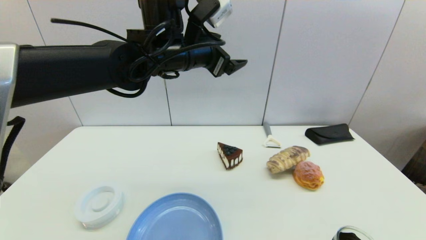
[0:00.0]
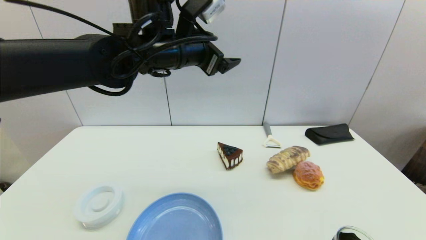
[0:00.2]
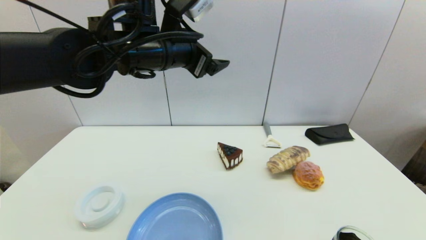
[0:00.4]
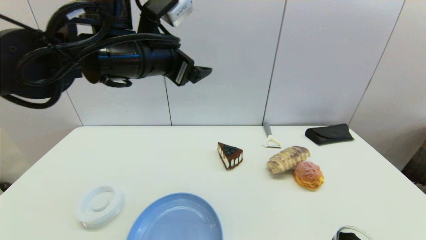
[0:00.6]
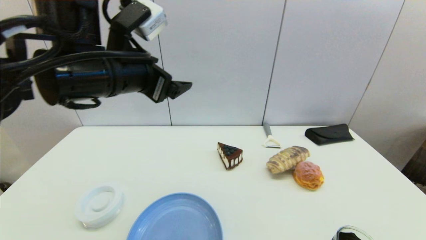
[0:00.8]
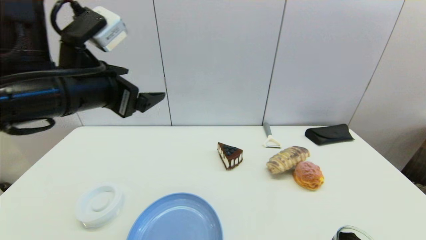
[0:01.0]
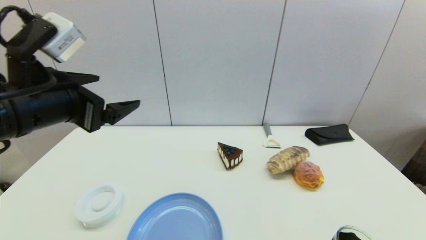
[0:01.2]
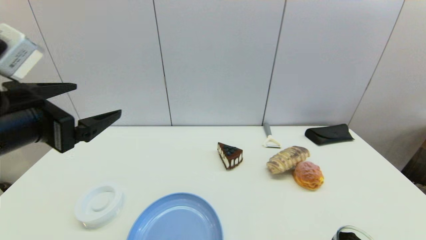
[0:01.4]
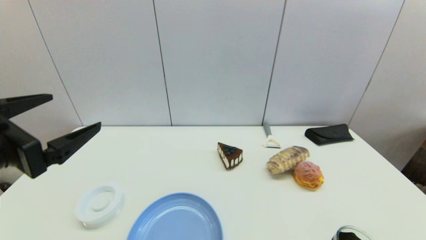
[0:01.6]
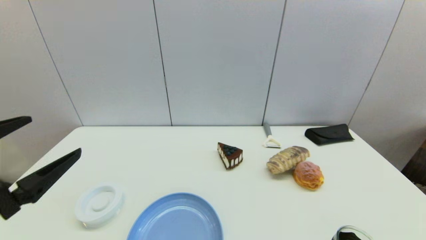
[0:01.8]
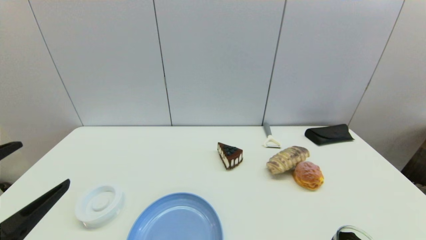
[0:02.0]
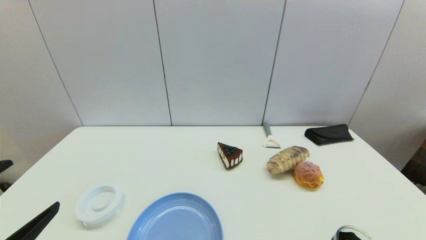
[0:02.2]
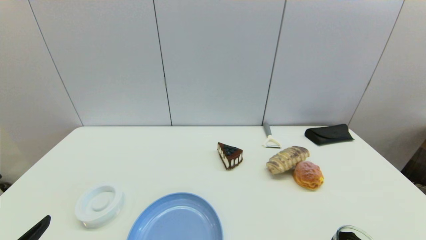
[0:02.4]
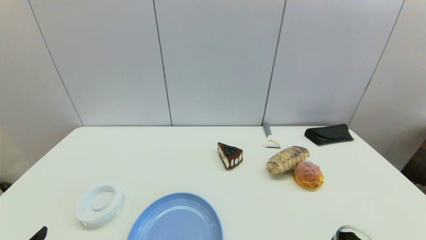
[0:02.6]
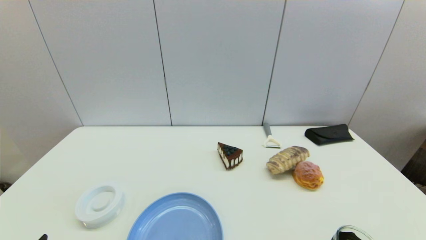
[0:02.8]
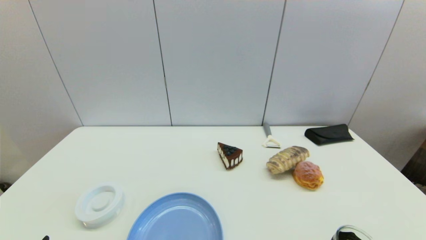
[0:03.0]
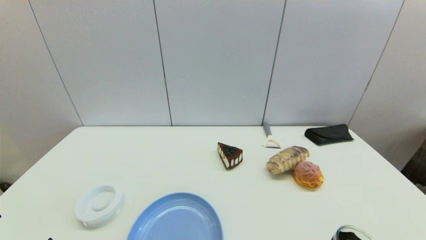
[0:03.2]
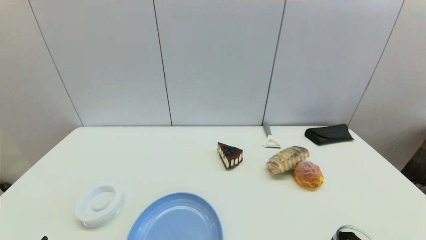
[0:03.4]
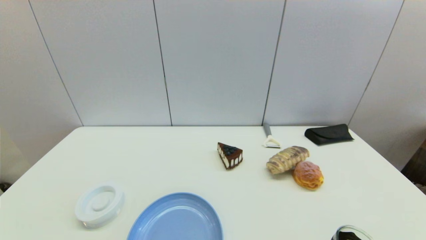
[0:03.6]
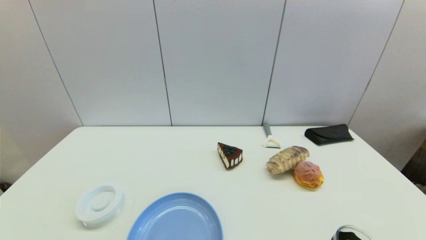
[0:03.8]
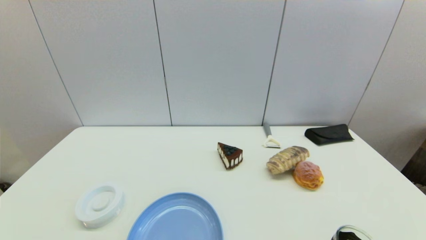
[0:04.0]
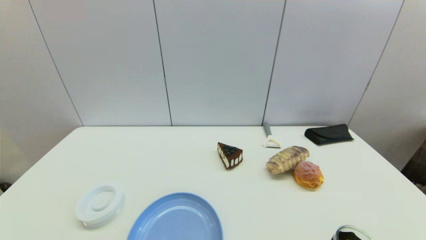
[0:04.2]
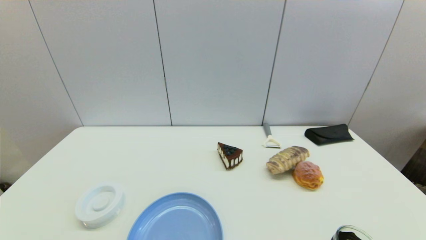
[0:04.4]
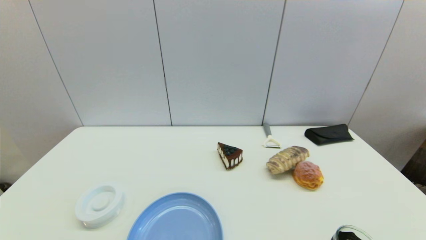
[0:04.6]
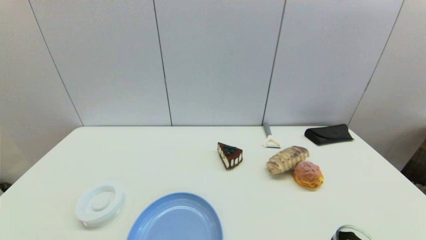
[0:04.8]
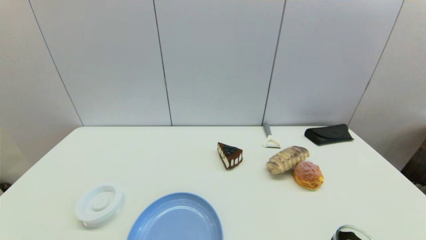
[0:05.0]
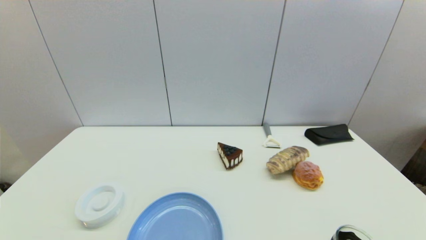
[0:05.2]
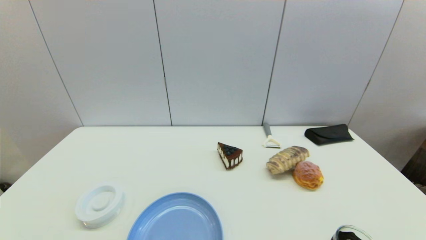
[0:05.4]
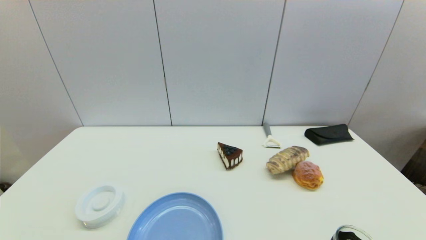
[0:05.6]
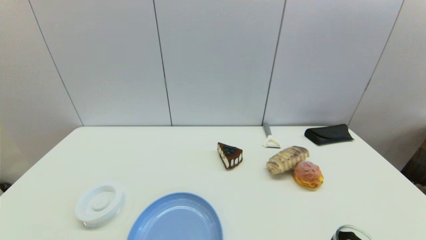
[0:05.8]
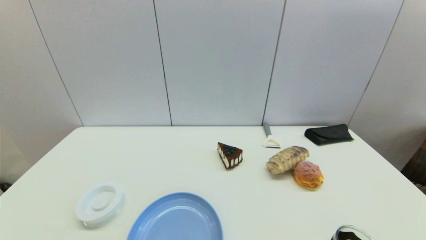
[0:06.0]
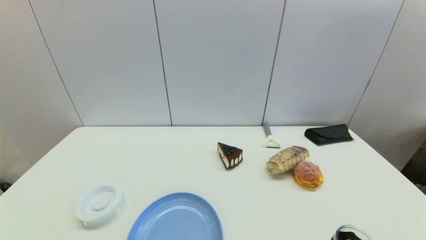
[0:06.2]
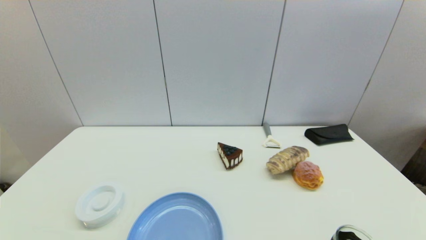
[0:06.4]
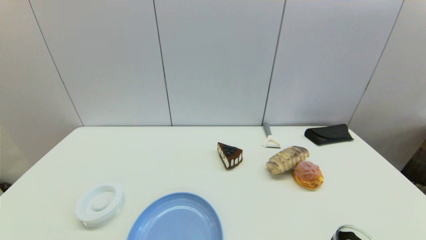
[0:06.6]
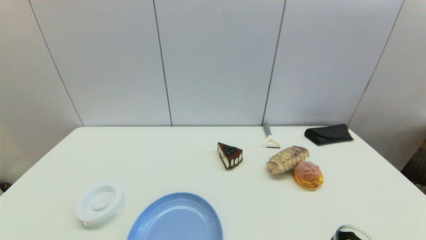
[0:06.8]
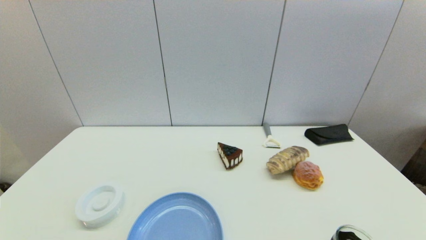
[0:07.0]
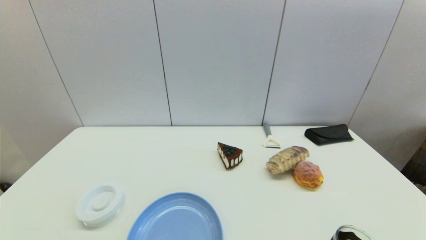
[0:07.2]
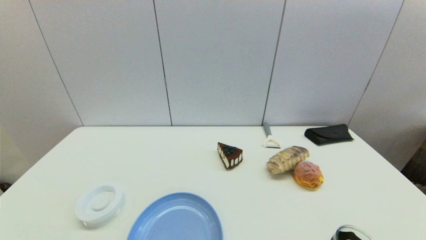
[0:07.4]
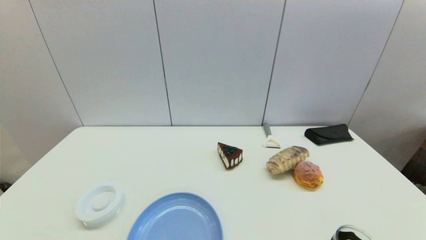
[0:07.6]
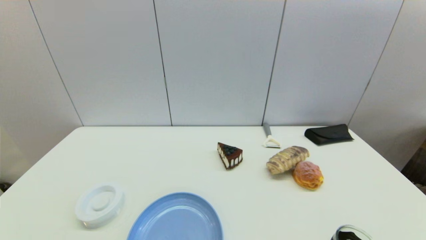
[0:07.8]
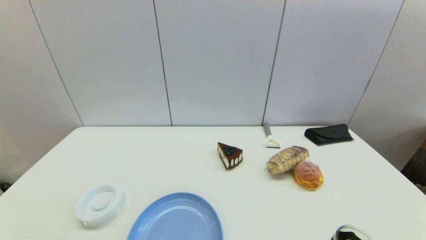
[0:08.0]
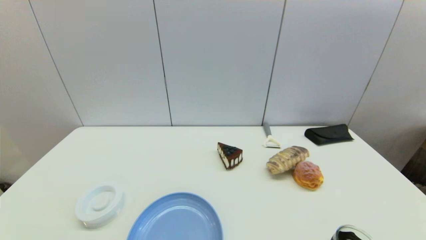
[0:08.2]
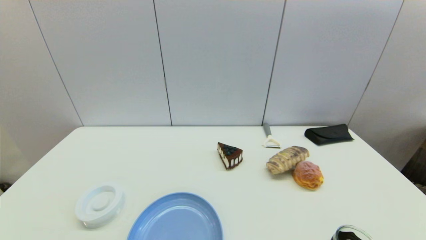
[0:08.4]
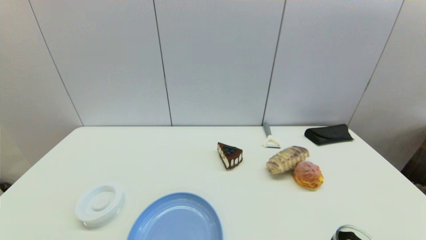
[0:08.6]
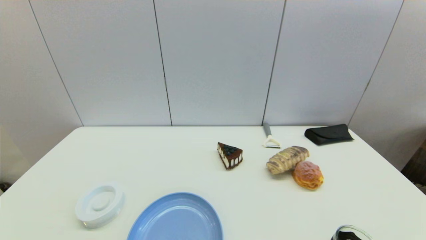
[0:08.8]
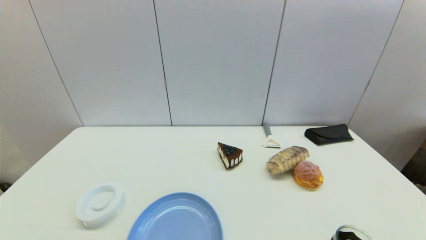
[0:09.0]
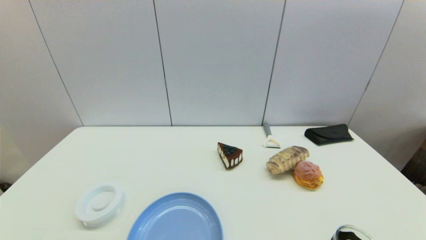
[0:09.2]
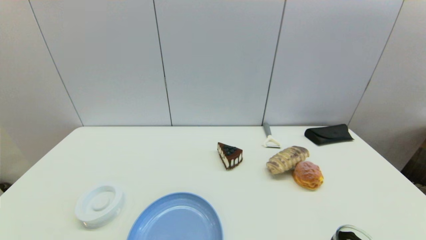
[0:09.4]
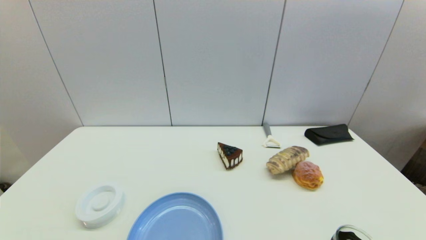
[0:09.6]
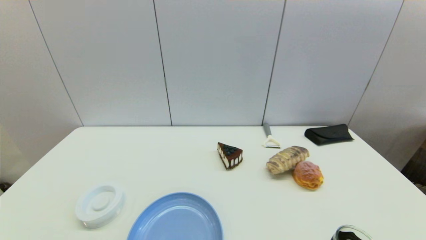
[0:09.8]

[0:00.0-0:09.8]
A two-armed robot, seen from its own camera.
0:00.0 to 0:01.4: The left gripper is displaced backward and to the left by about 25 cm.
0:01.4 to 0:02.8: The left gripper travels downward, backward and to the left by about 20 cm.
0:05.6 to 0:09.8: Both grippers stay put.
